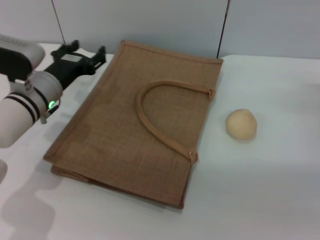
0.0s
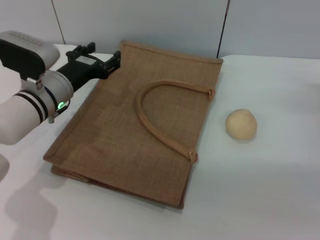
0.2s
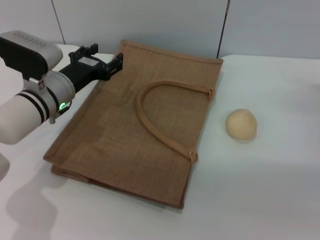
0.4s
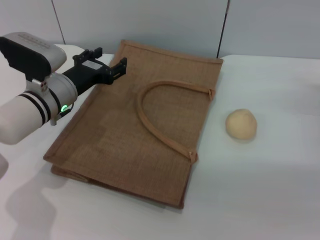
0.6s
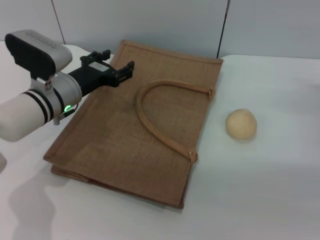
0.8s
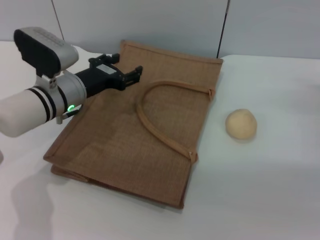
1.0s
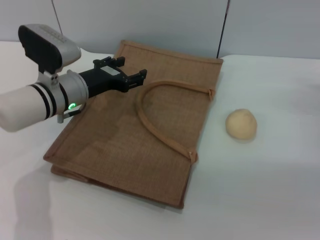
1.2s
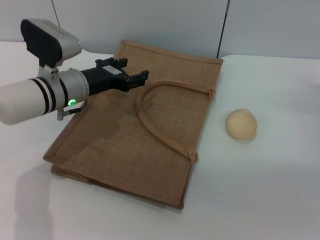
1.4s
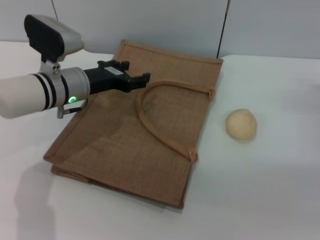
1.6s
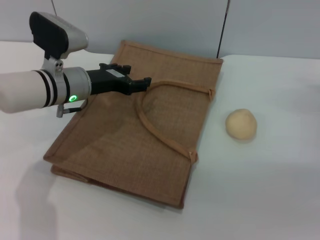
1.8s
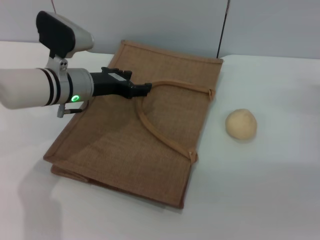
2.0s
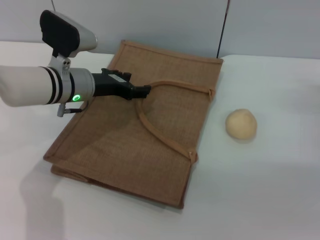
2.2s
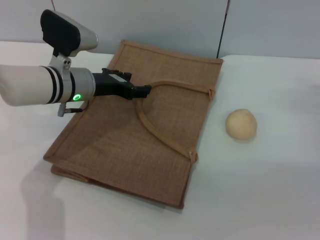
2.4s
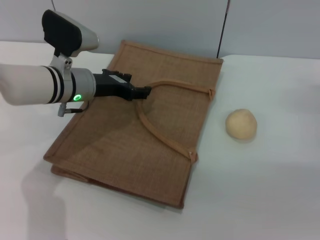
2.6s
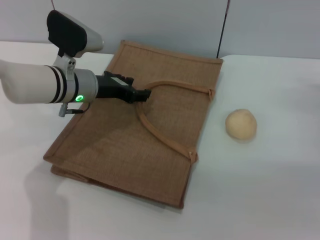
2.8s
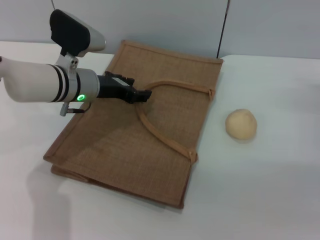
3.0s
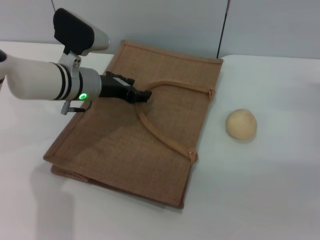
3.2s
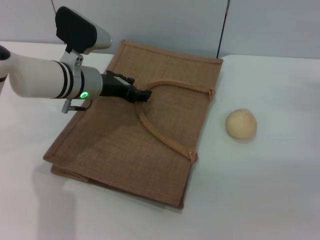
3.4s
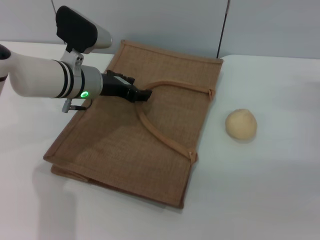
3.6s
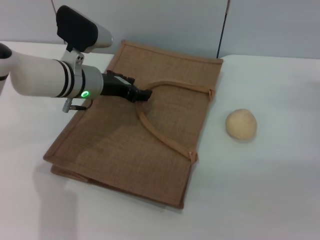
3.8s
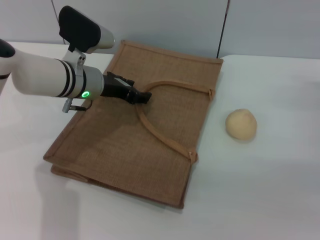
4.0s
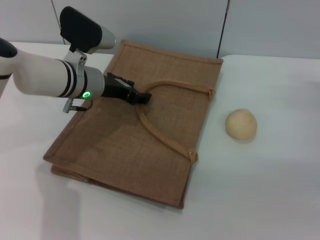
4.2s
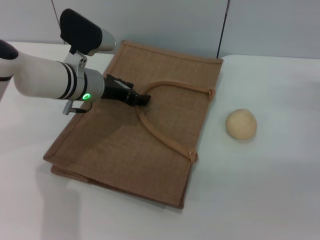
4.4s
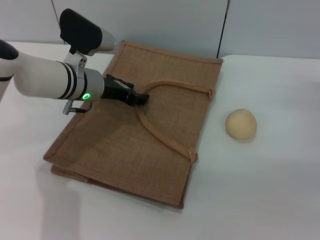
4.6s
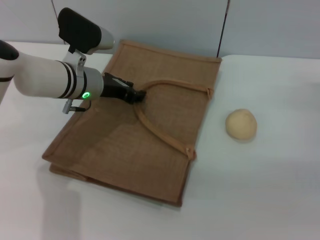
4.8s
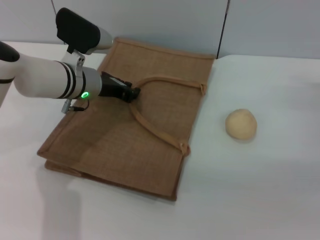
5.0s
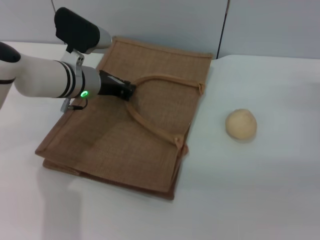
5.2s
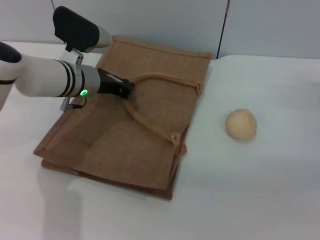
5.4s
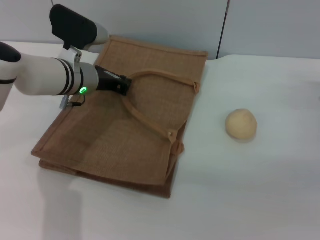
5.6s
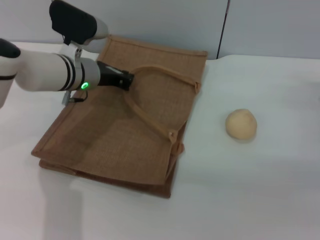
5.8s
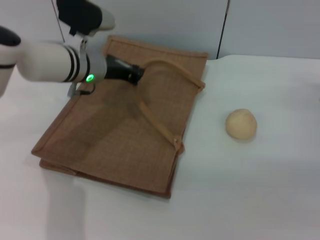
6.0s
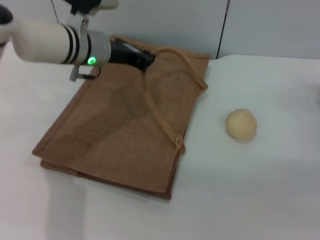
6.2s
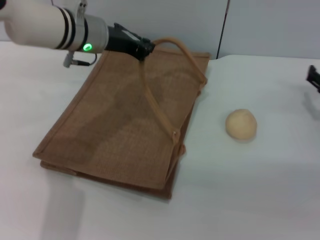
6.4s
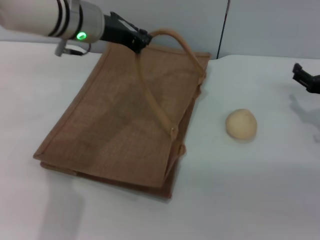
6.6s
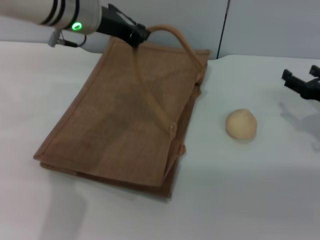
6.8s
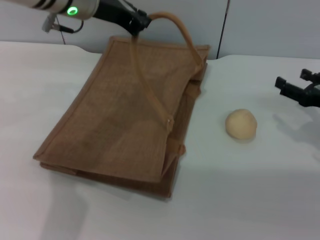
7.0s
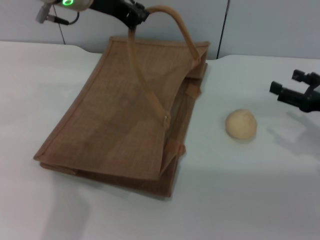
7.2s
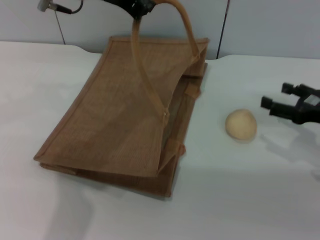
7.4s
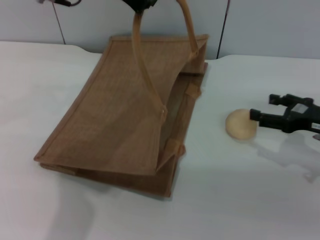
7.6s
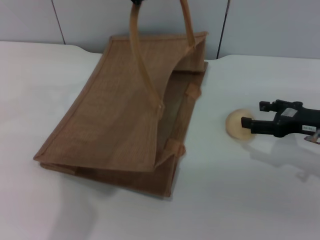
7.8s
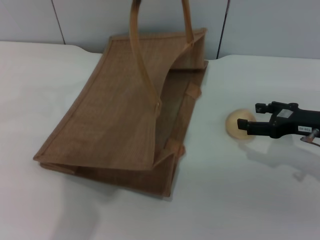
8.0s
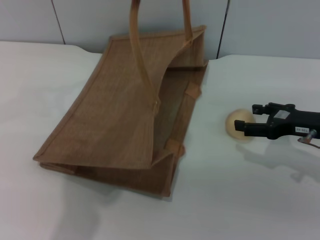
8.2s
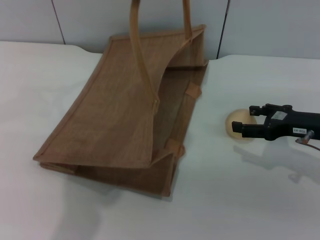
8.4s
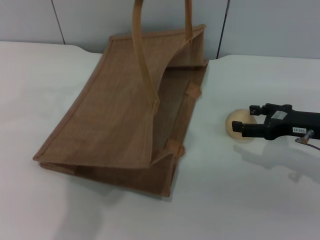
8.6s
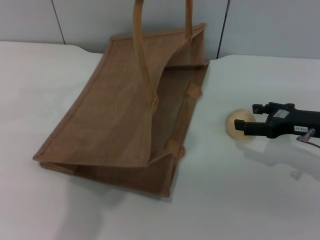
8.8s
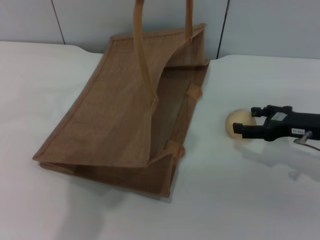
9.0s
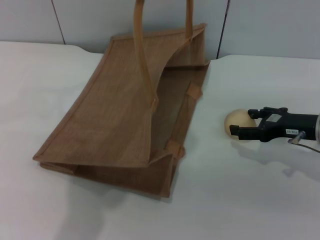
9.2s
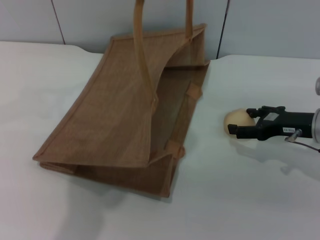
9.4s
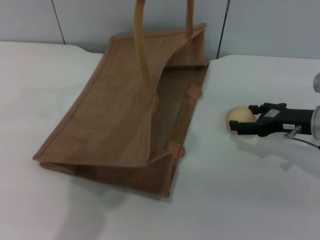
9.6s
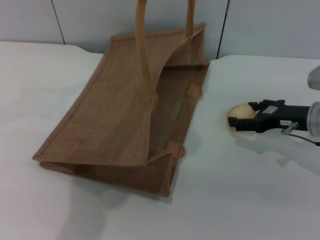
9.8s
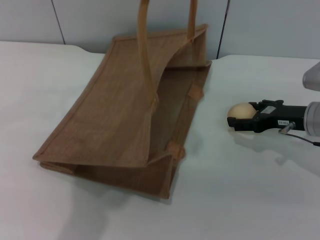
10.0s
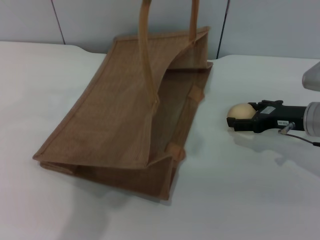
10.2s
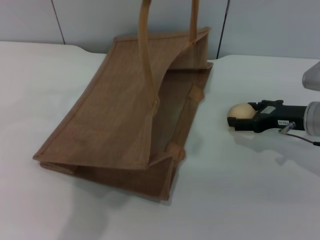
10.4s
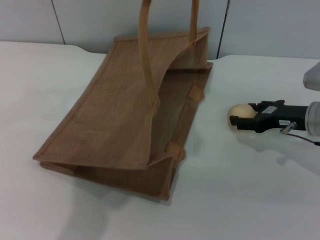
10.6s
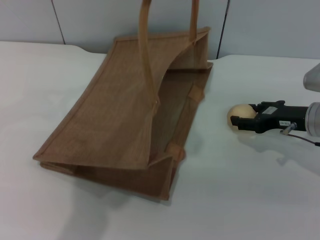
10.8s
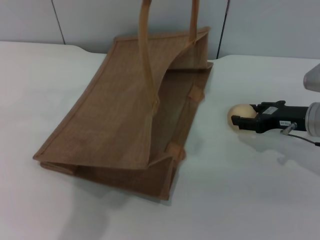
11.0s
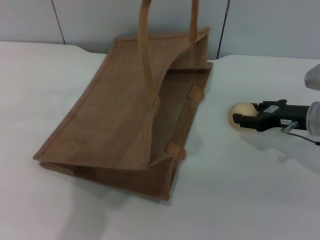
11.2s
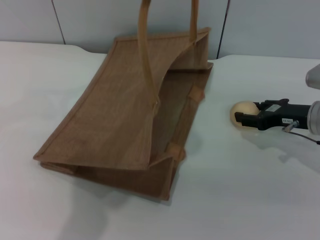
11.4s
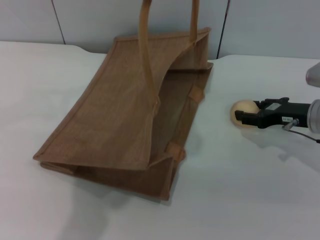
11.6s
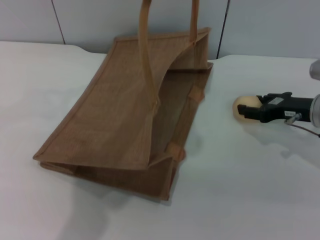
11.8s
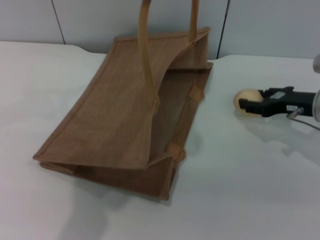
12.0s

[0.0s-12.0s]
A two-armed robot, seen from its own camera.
Task of the whole recording: pick up the egg yolk pastry from the table and place it in the brown handbag.
Step, 0.0s to 6.6s: Lift the woven bag with the left gripper to open it.
1.6s to 4.4s: The grippers make only small movements.
4.4s to 6.0s: The left gripper closes up.
6.0s to 7.6s: The left gripper shifts some 20 cm upward. The right gripper ends up about 5 cm from where it was.
7.6s to 9.0s: The grippers make only small movements.
9.0s to 10.4s: The grippers move only a little.
10.4s to 12.0s: The right gripper closes its fingers.

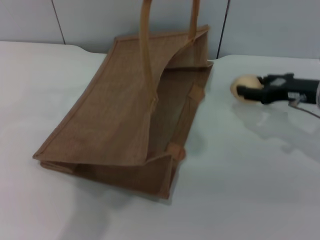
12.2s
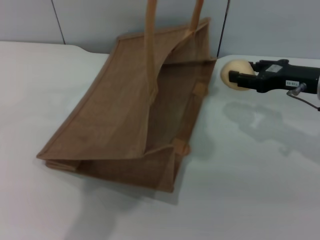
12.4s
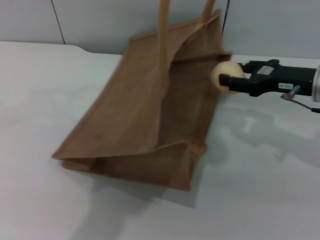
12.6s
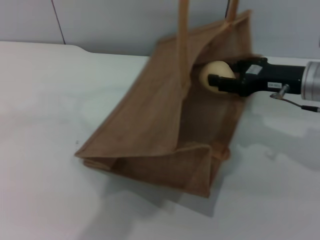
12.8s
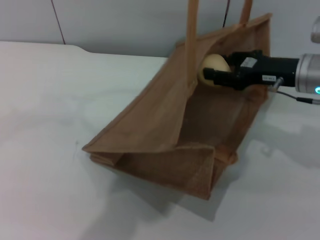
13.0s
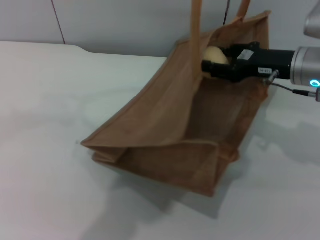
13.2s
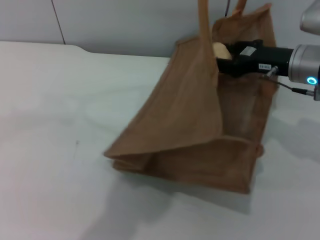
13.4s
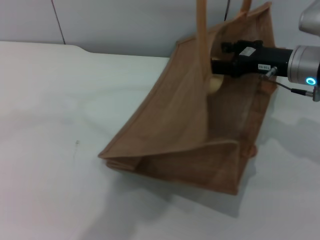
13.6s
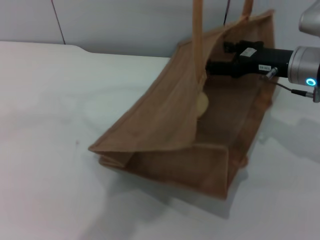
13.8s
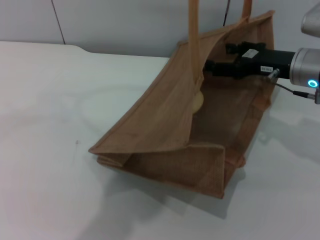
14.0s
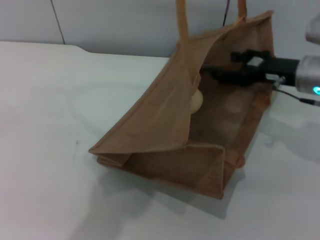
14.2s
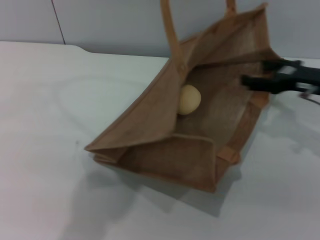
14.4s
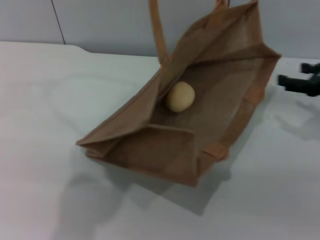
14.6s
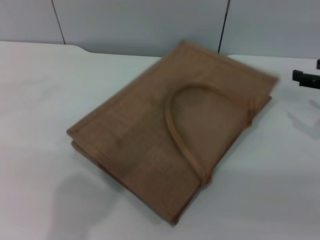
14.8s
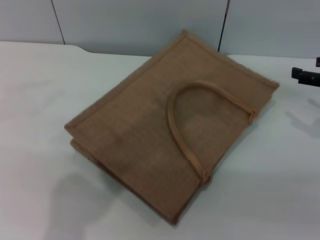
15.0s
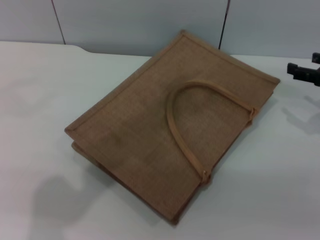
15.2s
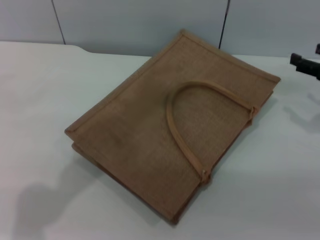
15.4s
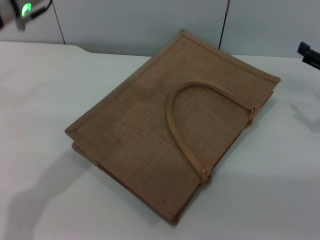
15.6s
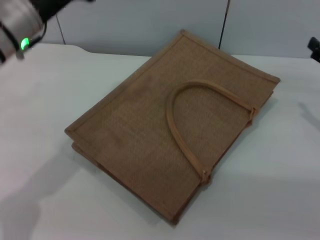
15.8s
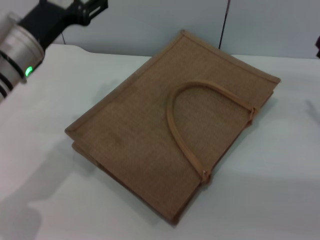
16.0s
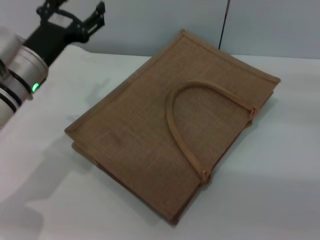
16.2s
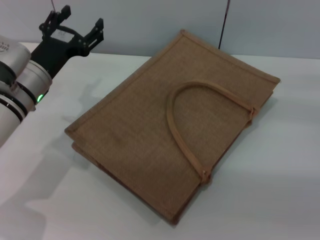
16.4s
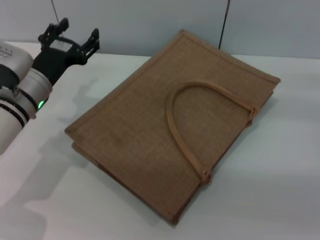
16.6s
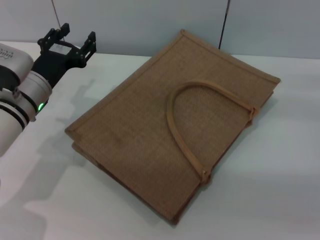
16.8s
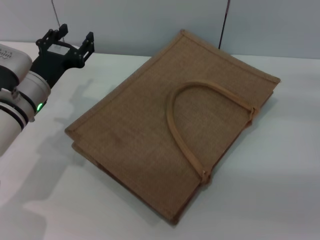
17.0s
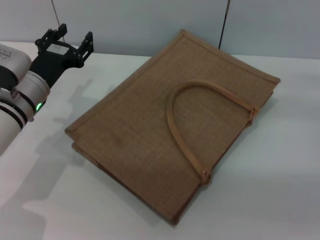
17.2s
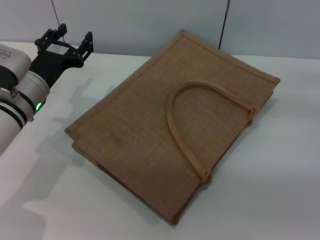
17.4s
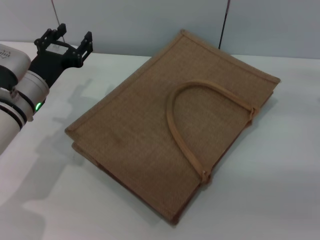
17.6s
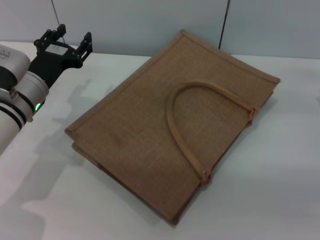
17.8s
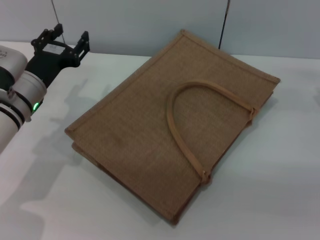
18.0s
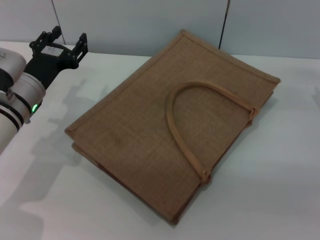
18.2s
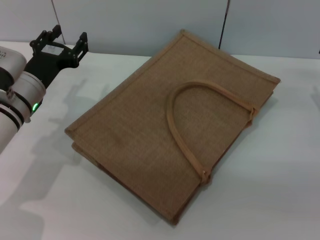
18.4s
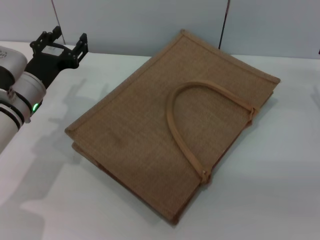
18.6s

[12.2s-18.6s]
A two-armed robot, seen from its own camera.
Task of the whole recording: pick up the egg yolk pastry from the table and place it in the brown handbag.
Step, 12.4s to 14.2s: Place the egg yolk pastry into the woven bag with the right gripper.
Step, 14.4s to 15.0s: Lower the woven bag with the left gripper to close it.
12.2s to 13.8s: The right gripper moves about 5 cm, and opens up; the left gripper shifts some 5 cm to the right.
13.8s to 15.4s: The left gripper shifts some 15 cm to the left and downward, and opens. The right gripper travels to the right by about 10 cm, and opens its fingers.
15.4s to 17.0s: The left gripper moves downward, approximately 20 cm, while the right gripper shifts roughly 5 cm downward.
17.0s to 18.6s: The grippers make only small movements.
